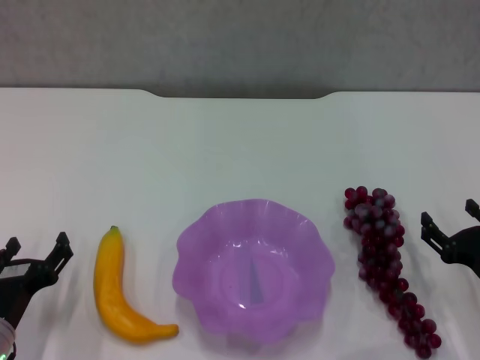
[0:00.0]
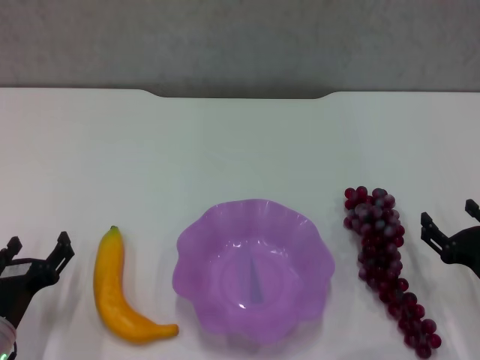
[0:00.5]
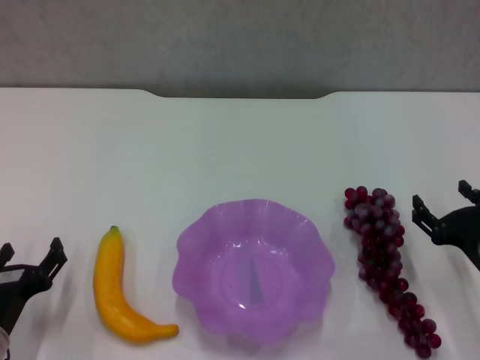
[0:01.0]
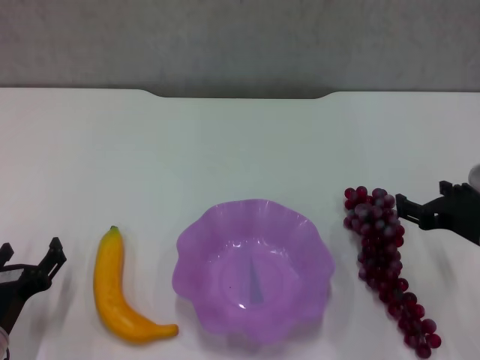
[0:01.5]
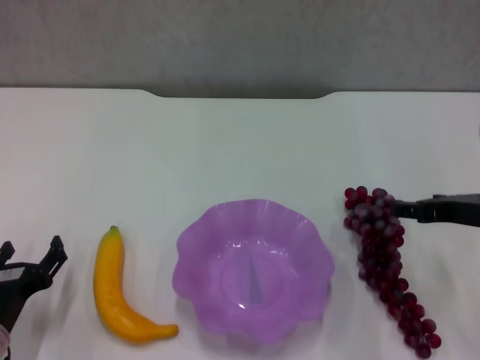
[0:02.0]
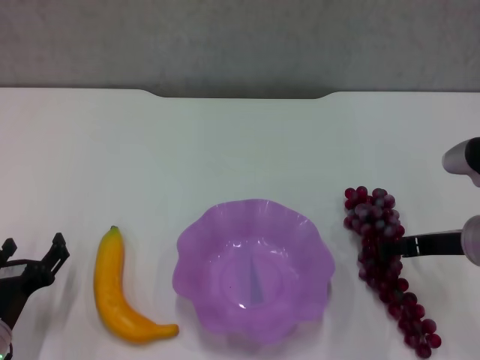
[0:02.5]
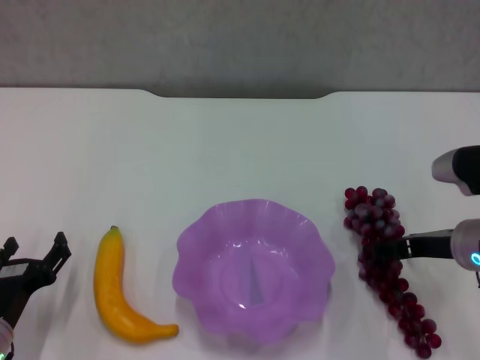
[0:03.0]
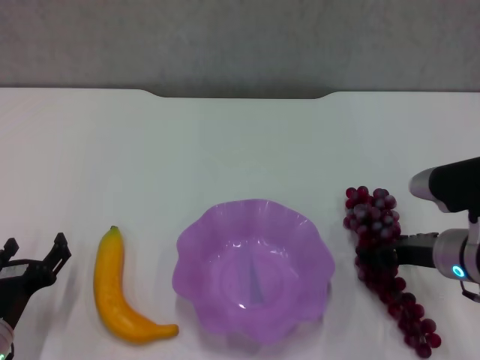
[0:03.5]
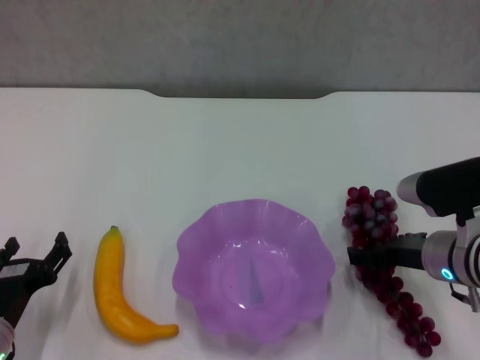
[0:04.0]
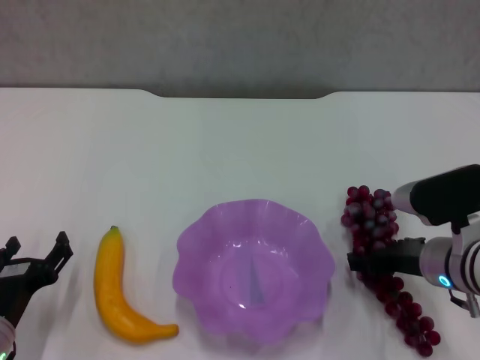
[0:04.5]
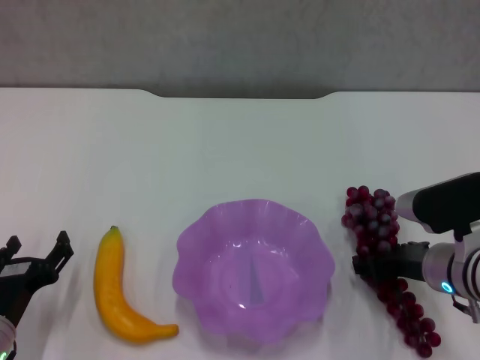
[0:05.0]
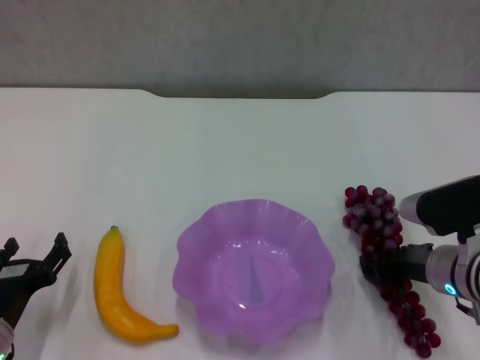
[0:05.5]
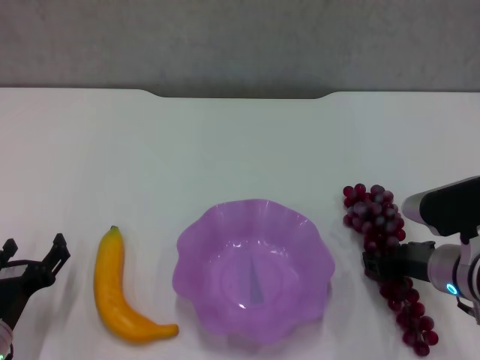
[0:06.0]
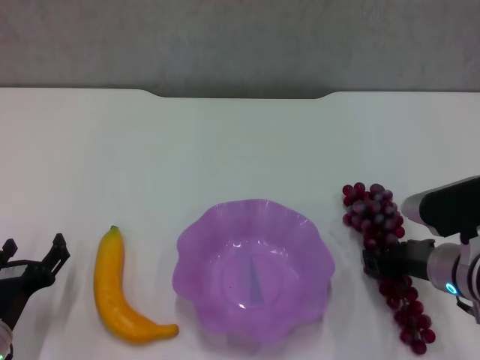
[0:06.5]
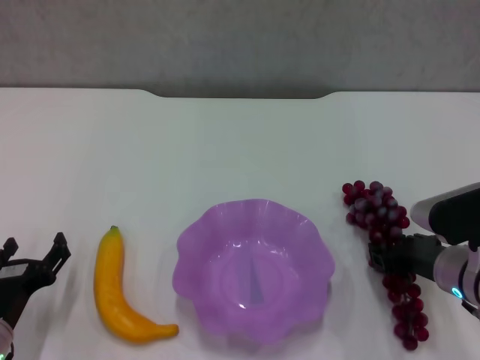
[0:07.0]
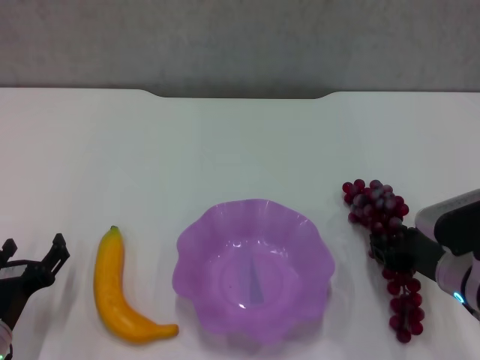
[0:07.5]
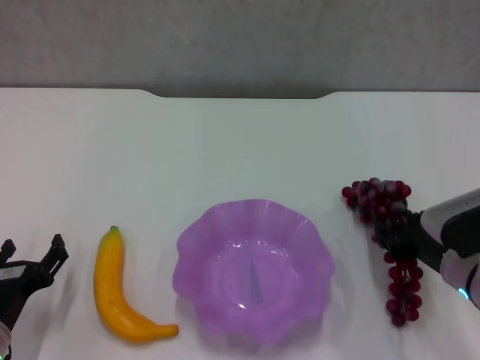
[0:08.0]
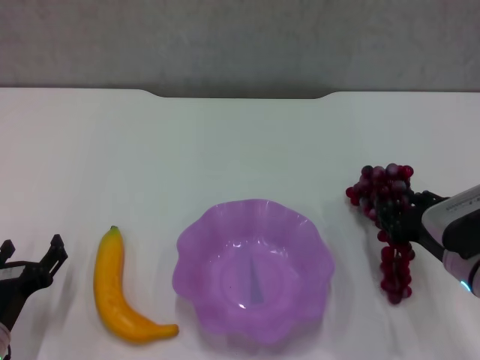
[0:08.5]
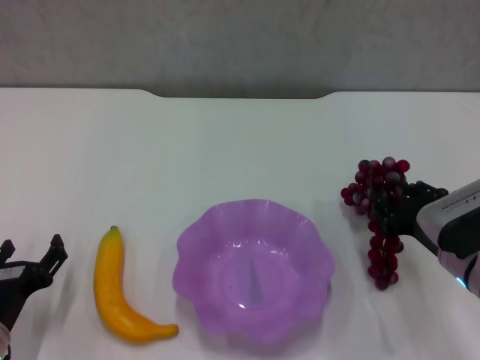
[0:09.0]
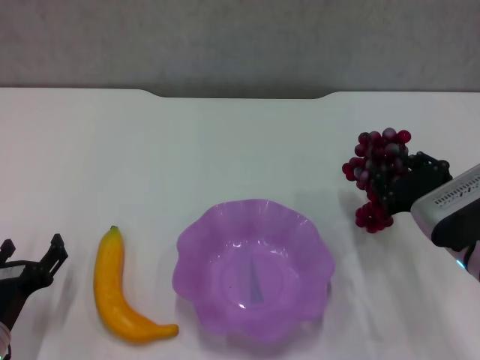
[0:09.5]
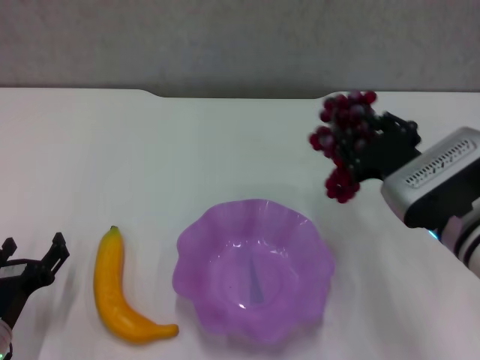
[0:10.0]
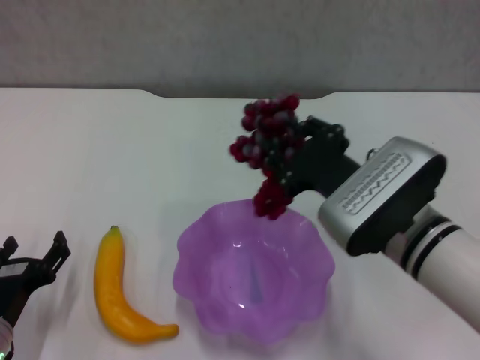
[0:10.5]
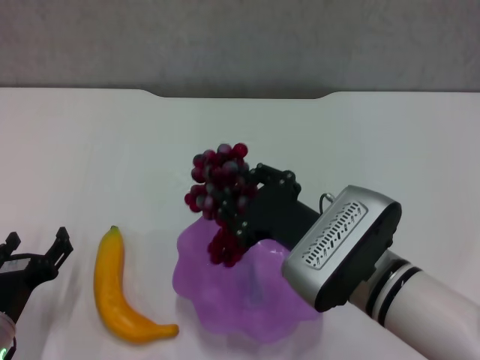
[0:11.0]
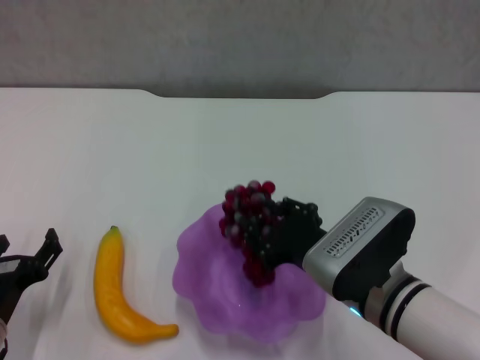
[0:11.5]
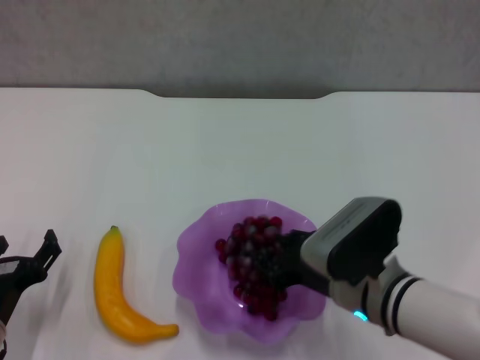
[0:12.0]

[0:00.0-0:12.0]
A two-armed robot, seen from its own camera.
Step, 0:00.0 to 0:05.5: Grasp the grape with right gripper.
0:00.0 to 0:02.0: The right gripper goes some 15 cm upward and forward.
0:02.0 to 0:04.0: The right gripper is displaced downward by approximately 5 cm.
0:04.0 to 0:06.0: The right gripper closes its fingers.
0:06.0 to 0:08.0: The grippers stay close to where they were, moving slightly.
0:08.0 to 0:10.0: The right gripper shifts some 5 cm upward.
0:10.0 to 0:12.0: The right gripper heads to the left and downward, covering some 10 cm.

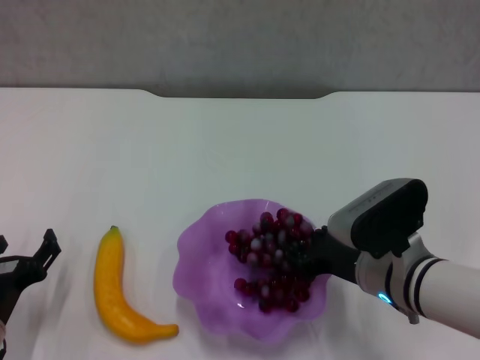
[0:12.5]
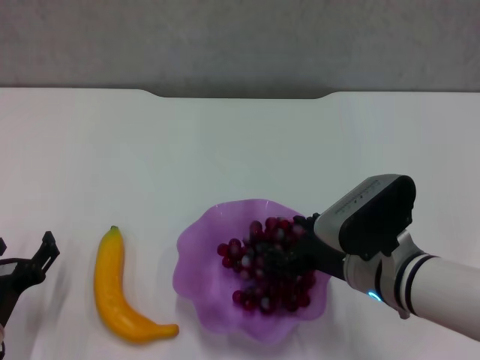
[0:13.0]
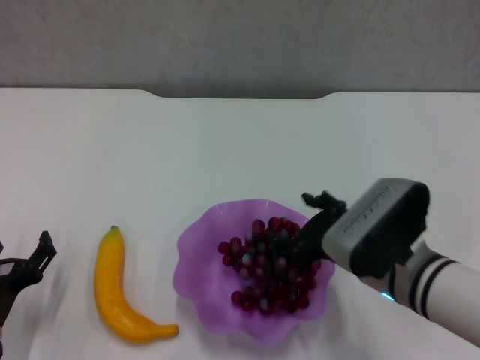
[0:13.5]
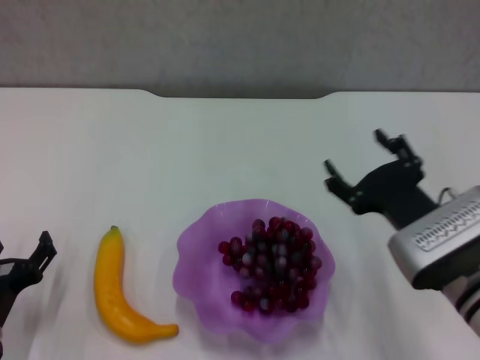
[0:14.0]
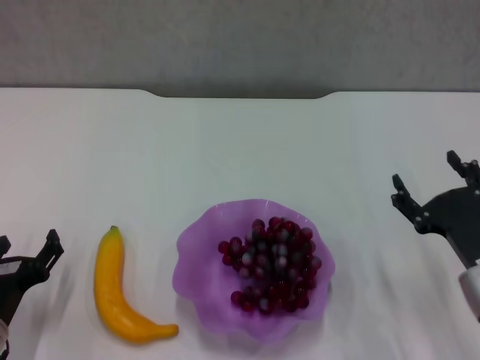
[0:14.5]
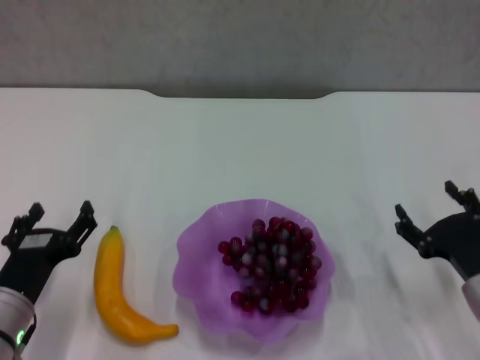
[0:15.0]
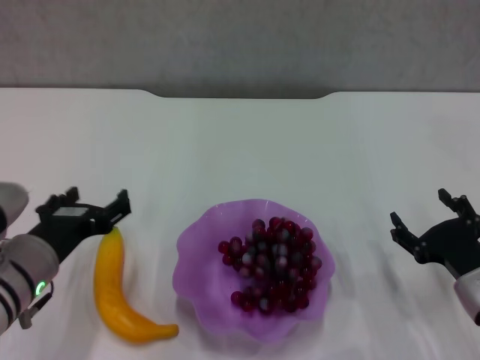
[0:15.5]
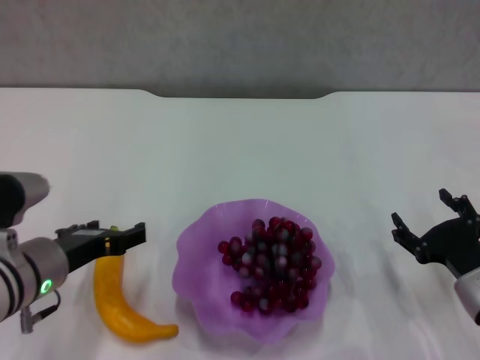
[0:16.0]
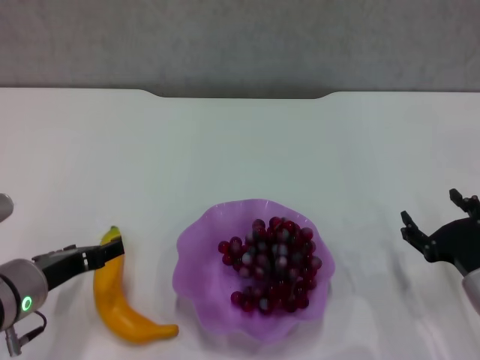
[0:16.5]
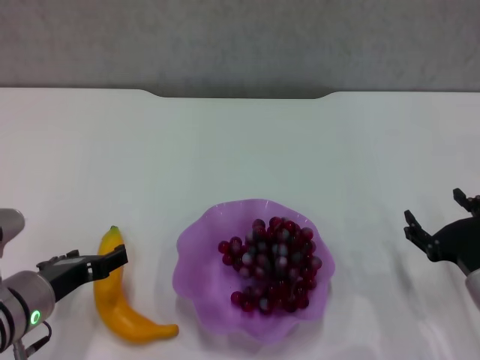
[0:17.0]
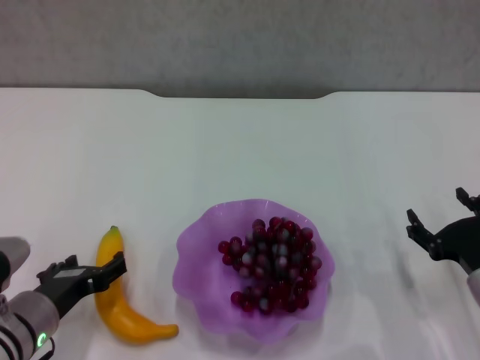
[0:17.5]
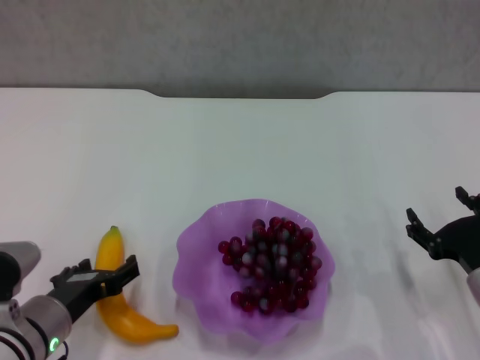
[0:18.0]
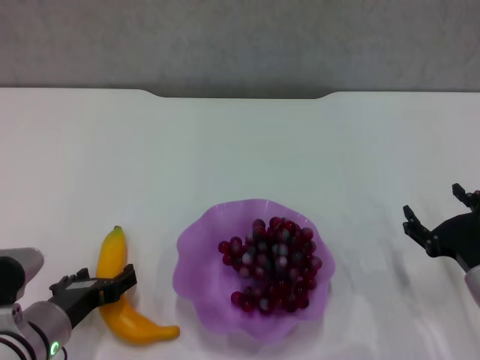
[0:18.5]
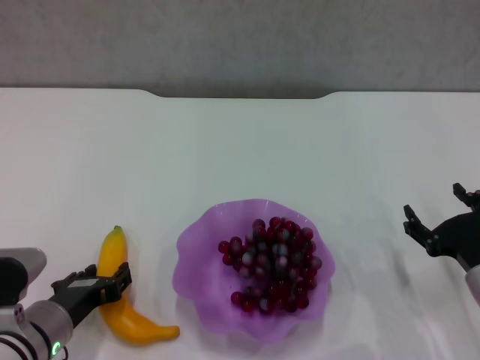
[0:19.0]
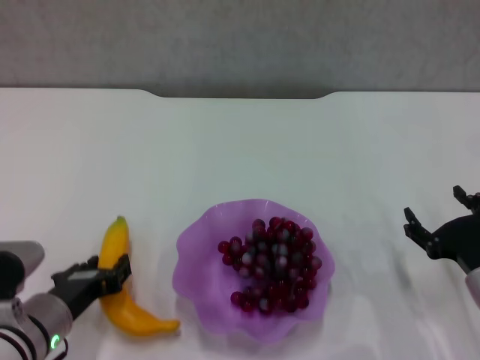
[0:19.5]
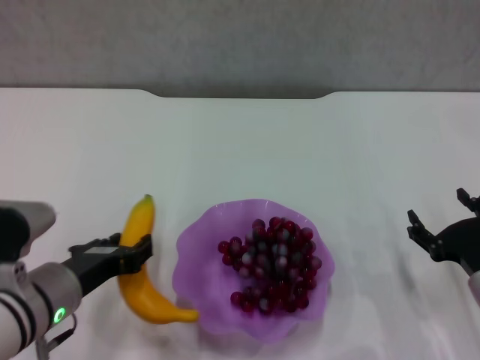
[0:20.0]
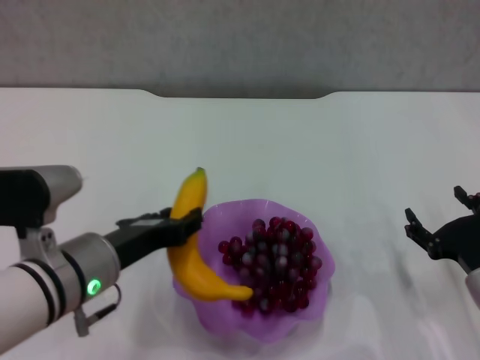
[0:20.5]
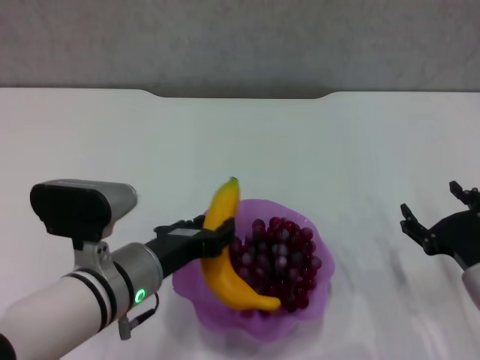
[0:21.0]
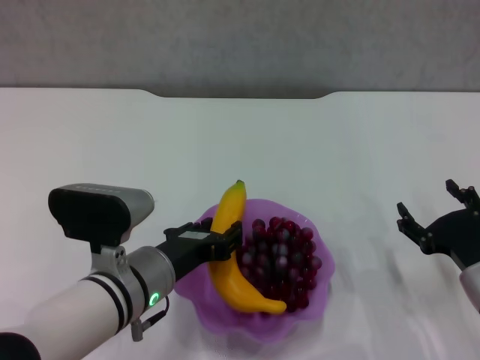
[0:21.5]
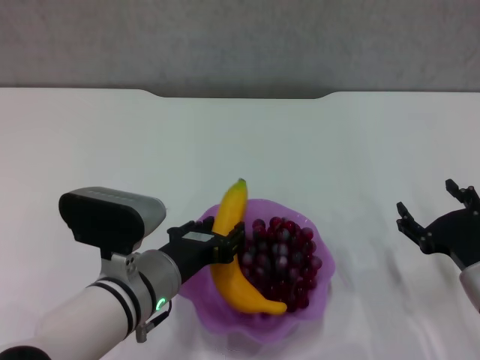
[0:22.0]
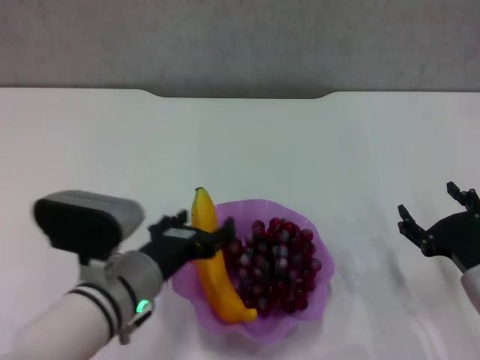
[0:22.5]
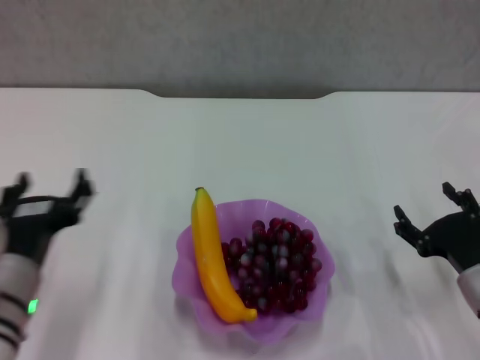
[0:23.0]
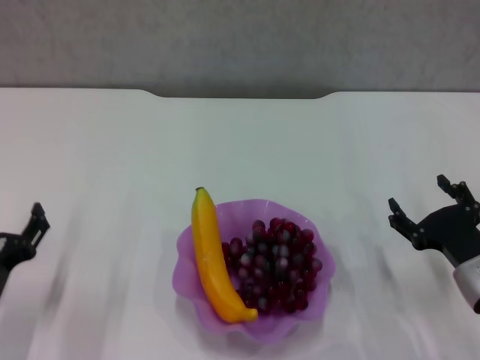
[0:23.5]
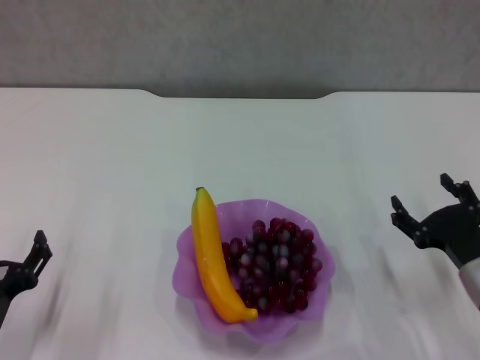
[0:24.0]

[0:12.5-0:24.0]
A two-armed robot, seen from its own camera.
Step, 0:14.0 to 0:19.0: Grasp the banana with left gripper.
Step, 0:19.5 to 0:22.0: Place the banana in the purple plate with left gripper.
0:12.5 to 0:14.5: The right gripper shifts some 10 cm to the right, and opens.
0:14.5 to 0:16.5: The left gripper moves upward, about 10 cm.
0:16.5 to 0:18.5: The left gripper goes about 5 cm downward.
0:18.5 to 0:20.0: The left gripper travels upward by about 5 cm, and closes its fingers.
0:20.0 to 0:22.0: The left gripper shifts some 10 cm to the right.
0:22.0 to 0:24.0: The left gripper is displaced to the left and backward by approximately 15 cm, and opens its fingers.

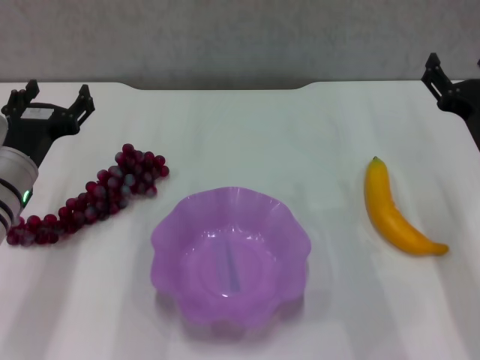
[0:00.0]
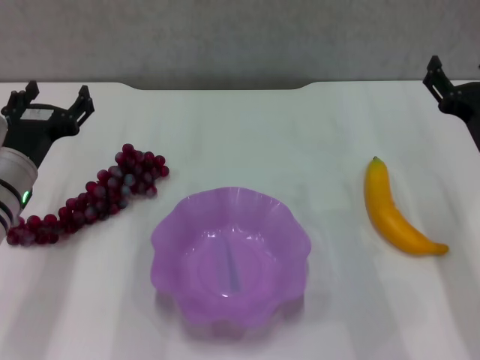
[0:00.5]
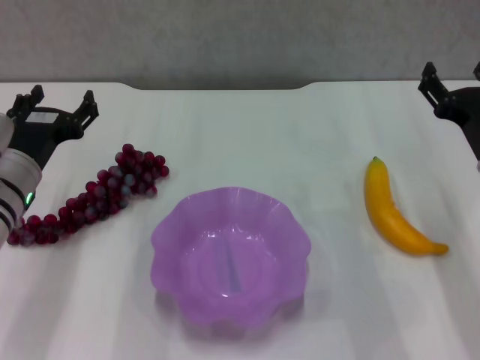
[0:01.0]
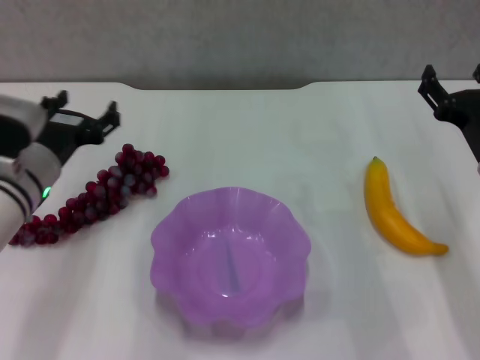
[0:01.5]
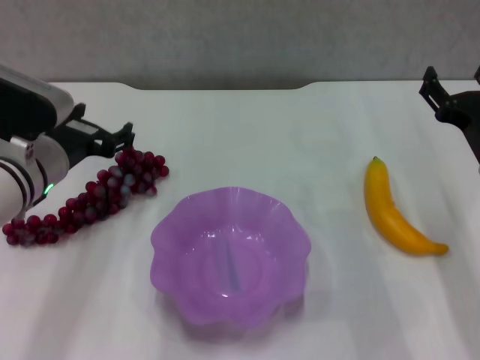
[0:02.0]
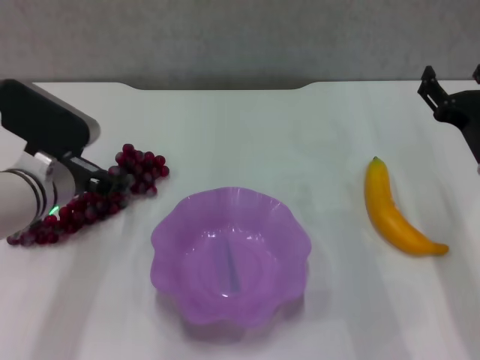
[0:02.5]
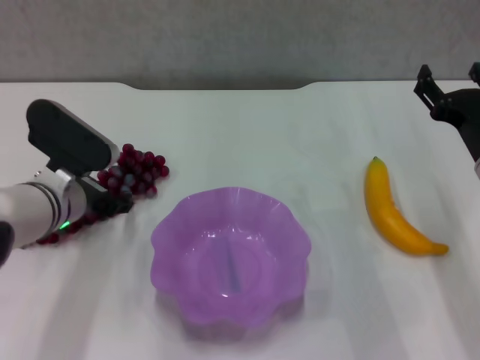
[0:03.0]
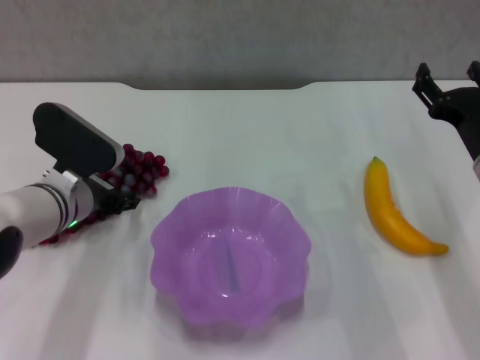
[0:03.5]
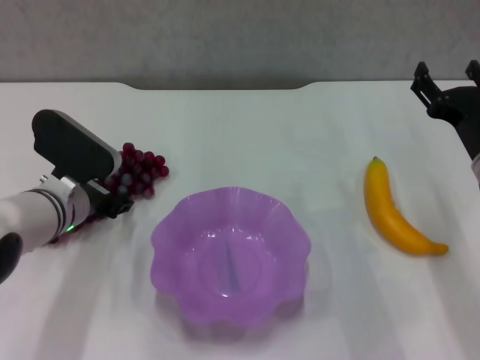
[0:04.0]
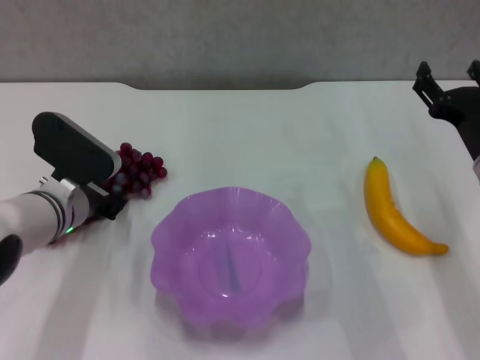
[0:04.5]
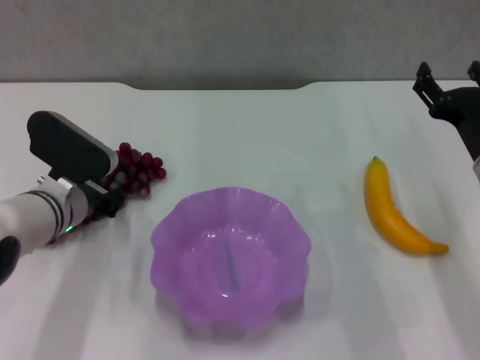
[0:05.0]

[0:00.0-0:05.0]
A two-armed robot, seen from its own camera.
0:02.5 to 0:05.0: The left gripper closes.
